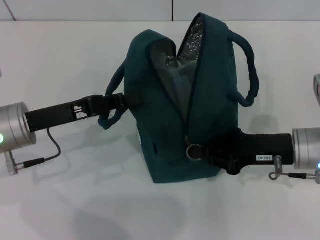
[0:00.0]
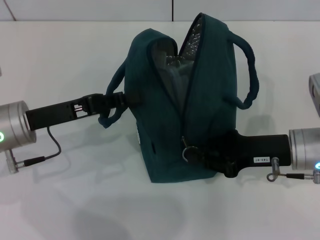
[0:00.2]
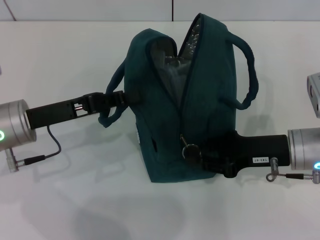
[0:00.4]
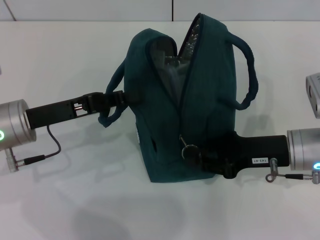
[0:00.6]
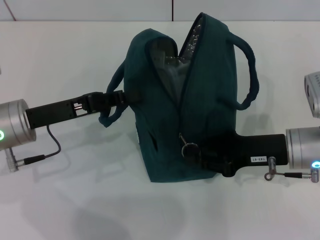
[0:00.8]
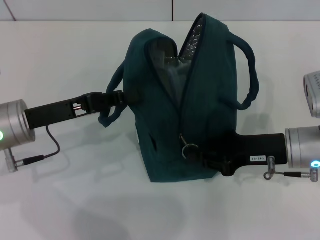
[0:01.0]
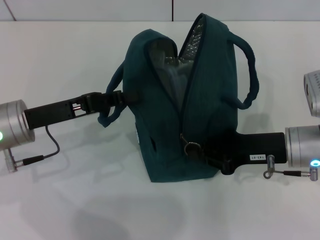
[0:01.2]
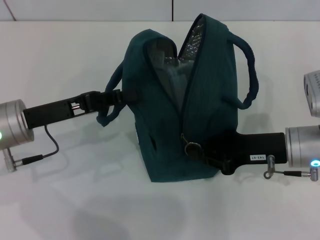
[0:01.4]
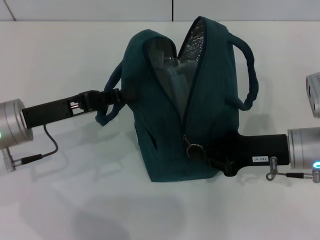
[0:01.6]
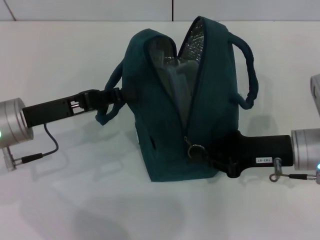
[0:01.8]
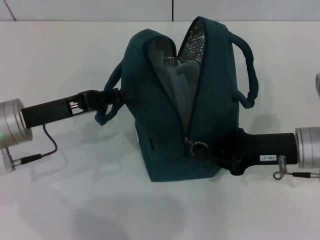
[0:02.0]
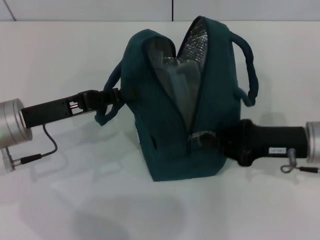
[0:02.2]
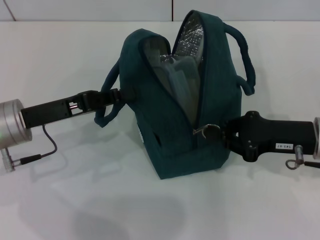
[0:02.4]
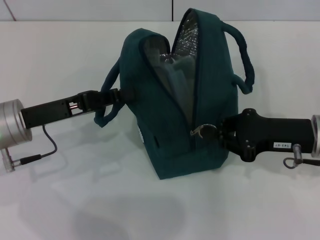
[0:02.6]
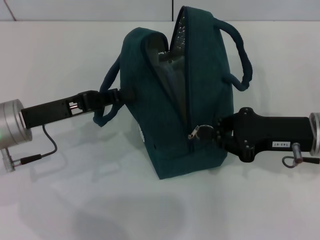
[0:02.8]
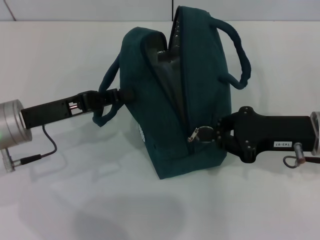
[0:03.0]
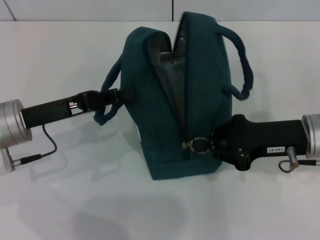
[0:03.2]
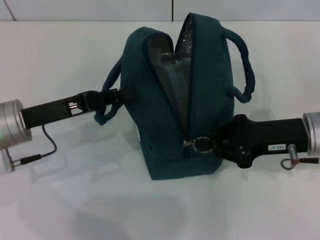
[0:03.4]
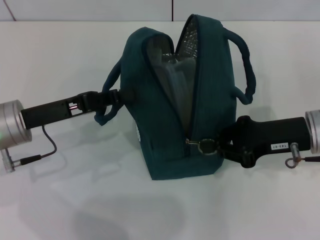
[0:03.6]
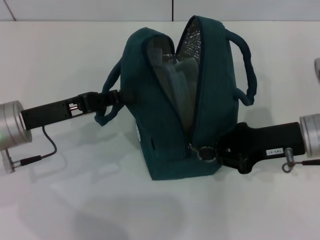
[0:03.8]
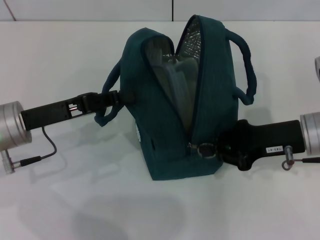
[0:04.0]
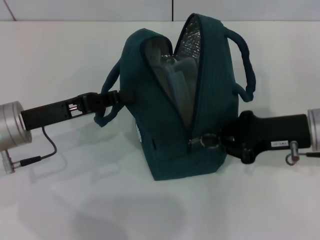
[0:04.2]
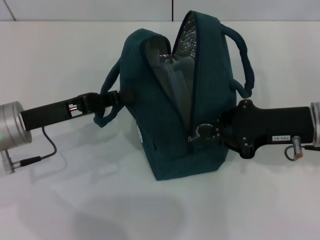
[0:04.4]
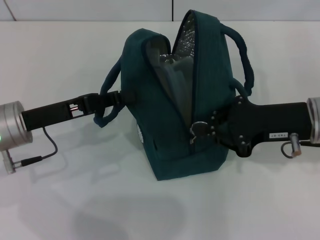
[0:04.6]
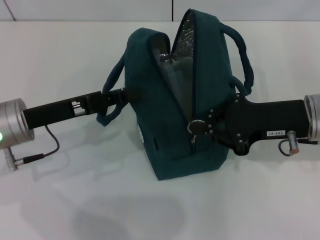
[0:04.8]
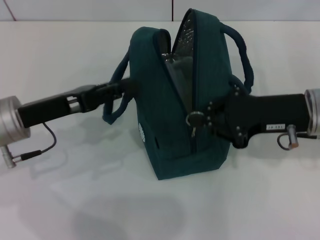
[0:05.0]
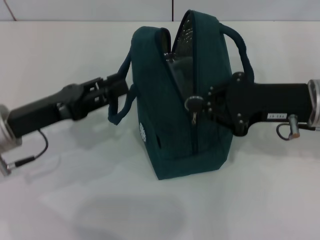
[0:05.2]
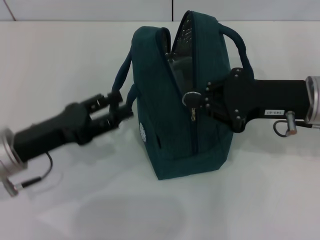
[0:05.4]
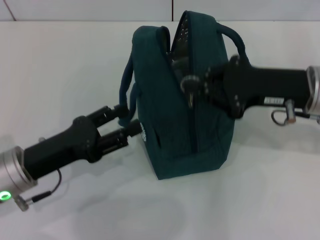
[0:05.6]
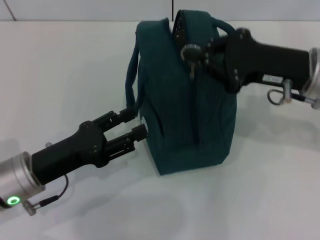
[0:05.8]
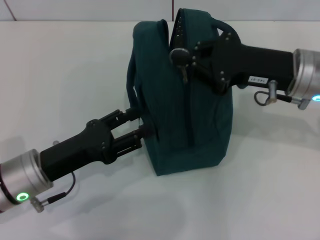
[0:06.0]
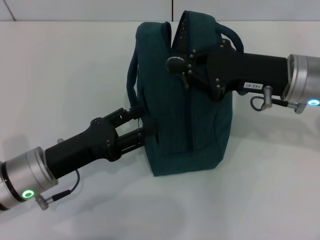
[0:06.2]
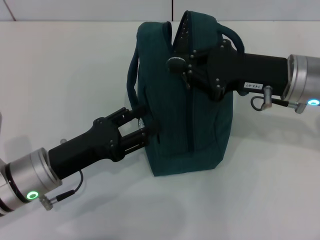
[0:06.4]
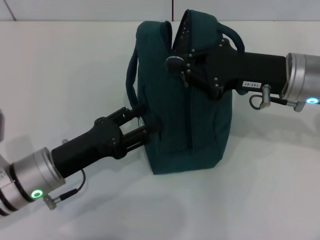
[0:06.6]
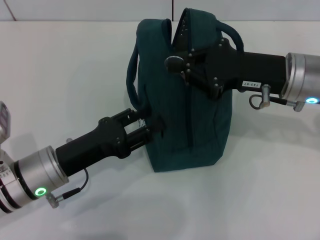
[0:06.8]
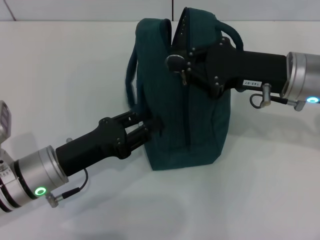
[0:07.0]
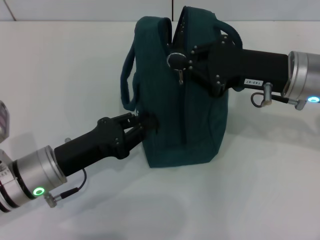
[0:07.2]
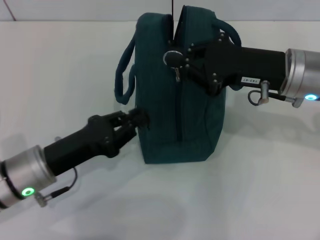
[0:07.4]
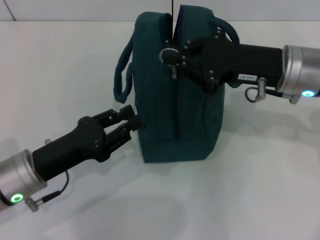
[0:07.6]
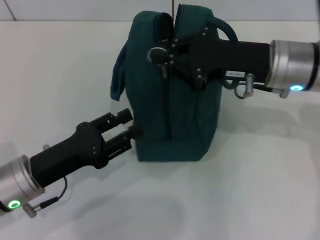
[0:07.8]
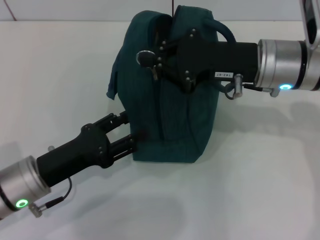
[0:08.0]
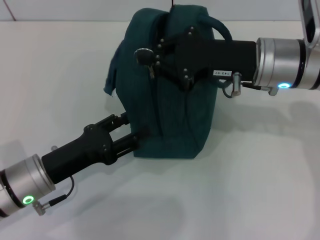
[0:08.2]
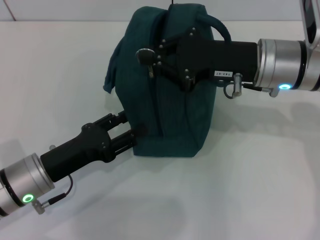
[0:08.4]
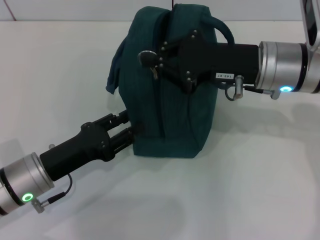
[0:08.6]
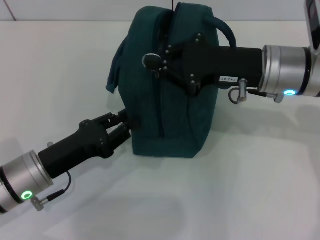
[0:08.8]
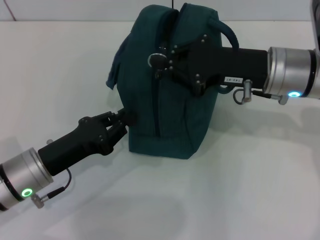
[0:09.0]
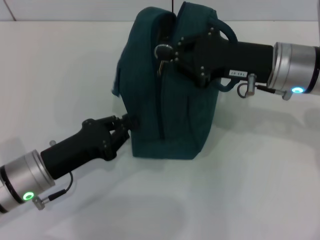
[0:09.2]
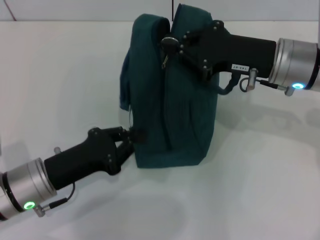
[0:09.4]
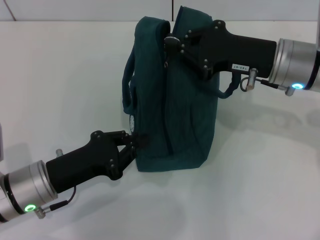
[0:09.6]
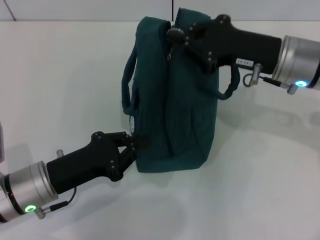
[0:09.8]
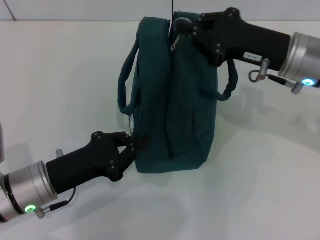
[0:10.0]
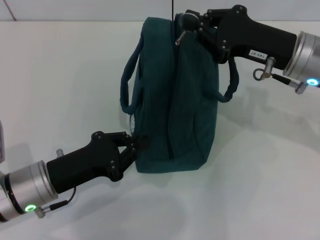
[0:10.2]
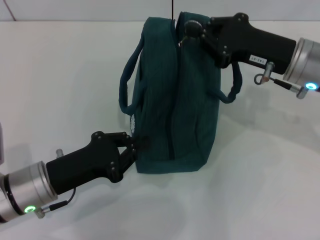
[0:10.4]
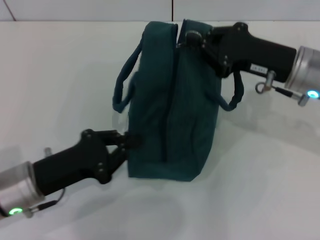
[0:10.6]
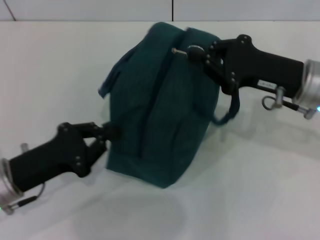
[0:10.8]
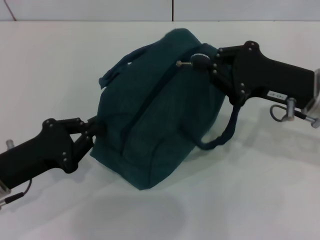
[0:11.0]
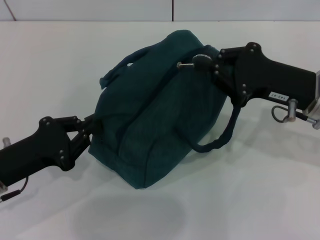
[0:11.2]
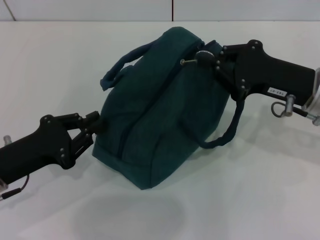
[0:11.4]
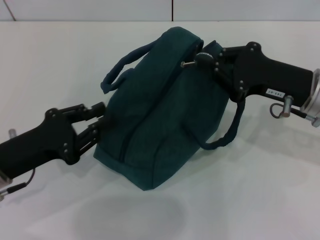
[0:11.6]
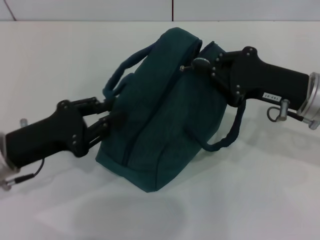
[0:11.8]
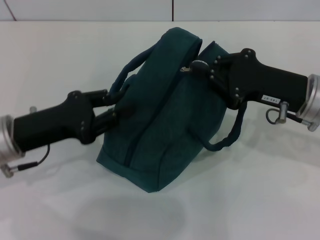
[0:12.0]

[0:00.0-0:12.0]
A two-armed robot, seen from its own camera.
0:00.0 to 0:01.6: The two grippers keep their place.
0:01.6 to 0:04.4: The grippers make only small movements.
0:04.4 to 0:06.0: The left gripper is displaced backward by approximately 5 cm, and opens its fingers. Meanwhile the right gripper changes place by about 5 cm.
0:06.0 to 0:07.6: The left gripper closes up.
0:07.6 to 0:09.0: The left gripper opens and closes again.
0:10.4 to 0:12.0: The left gripper is displaced upward by roughly 5 cm.

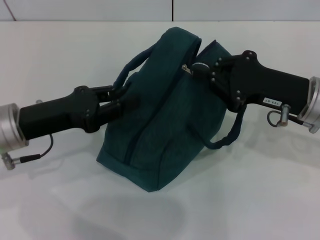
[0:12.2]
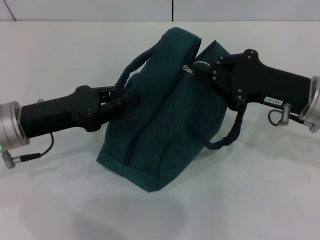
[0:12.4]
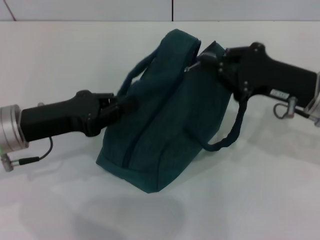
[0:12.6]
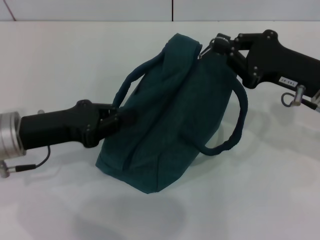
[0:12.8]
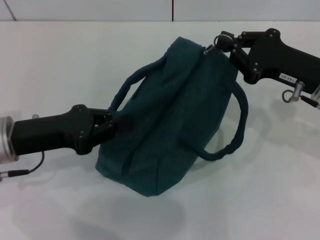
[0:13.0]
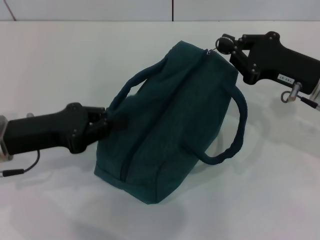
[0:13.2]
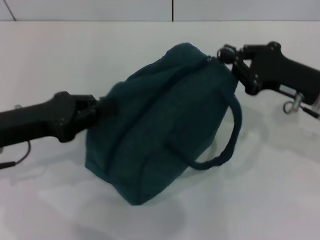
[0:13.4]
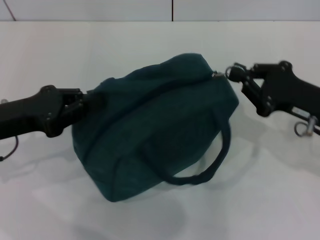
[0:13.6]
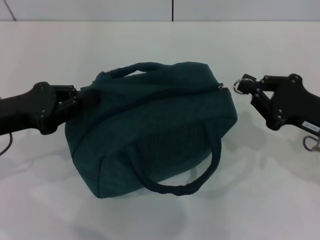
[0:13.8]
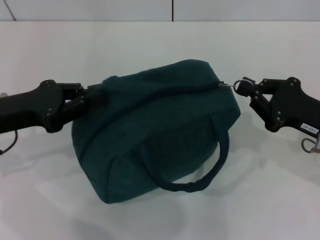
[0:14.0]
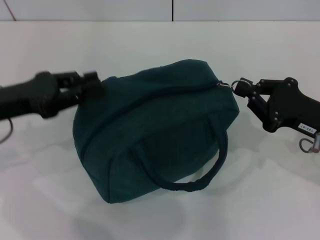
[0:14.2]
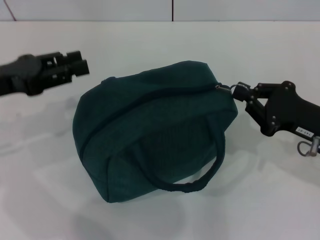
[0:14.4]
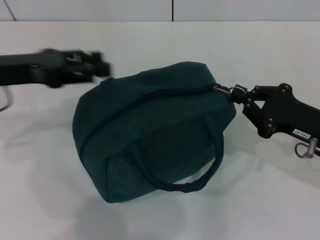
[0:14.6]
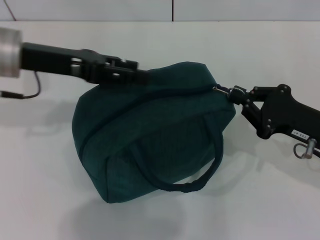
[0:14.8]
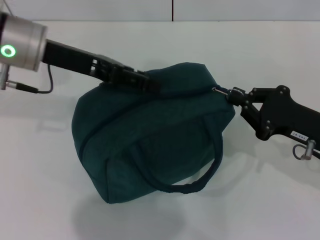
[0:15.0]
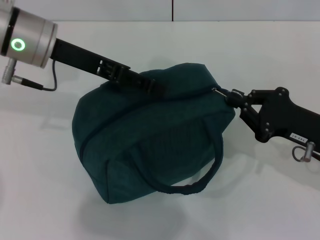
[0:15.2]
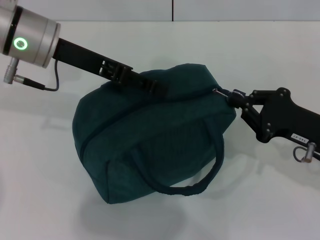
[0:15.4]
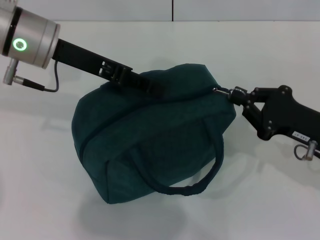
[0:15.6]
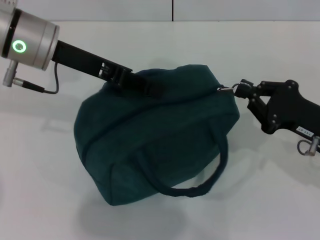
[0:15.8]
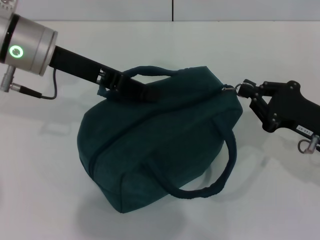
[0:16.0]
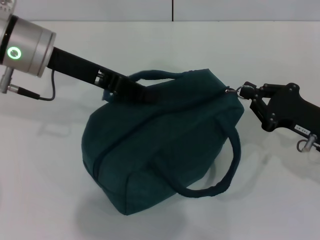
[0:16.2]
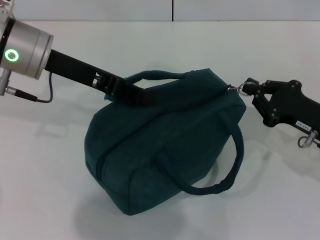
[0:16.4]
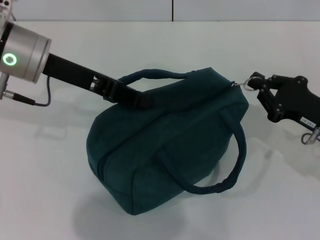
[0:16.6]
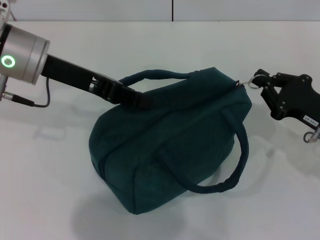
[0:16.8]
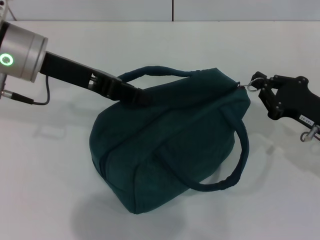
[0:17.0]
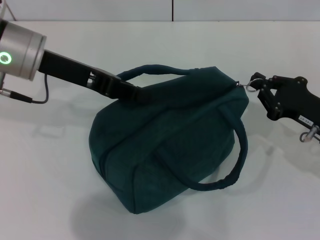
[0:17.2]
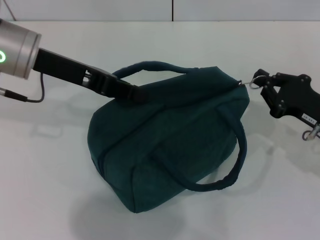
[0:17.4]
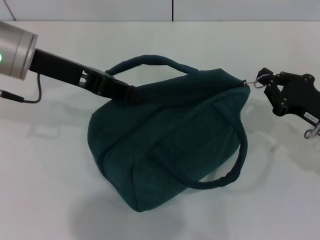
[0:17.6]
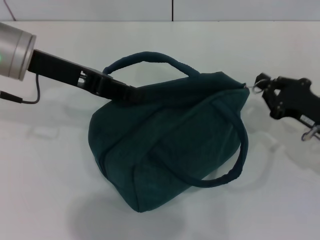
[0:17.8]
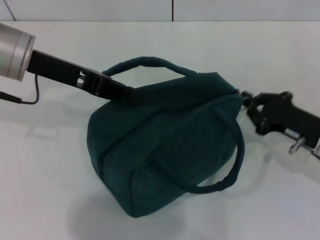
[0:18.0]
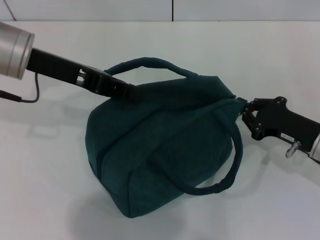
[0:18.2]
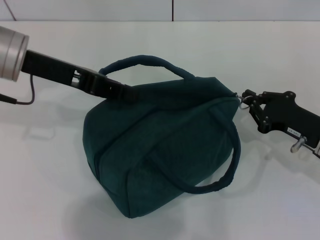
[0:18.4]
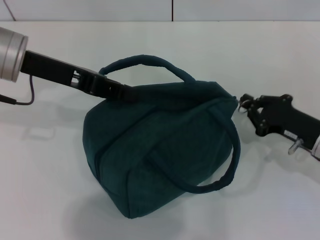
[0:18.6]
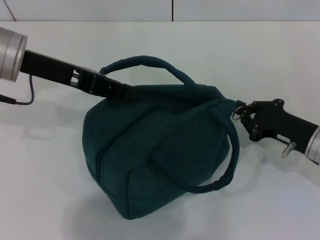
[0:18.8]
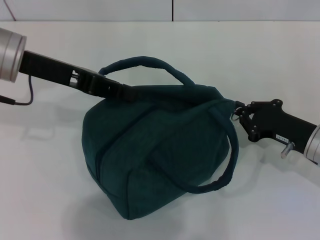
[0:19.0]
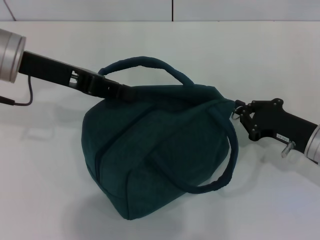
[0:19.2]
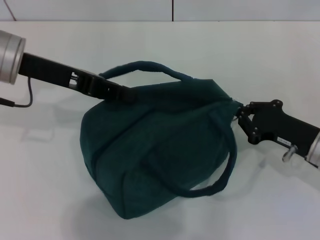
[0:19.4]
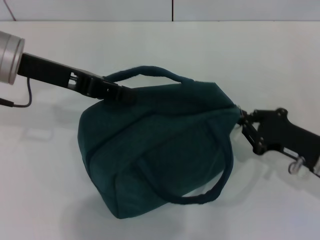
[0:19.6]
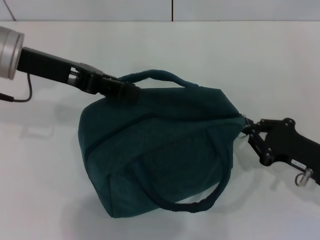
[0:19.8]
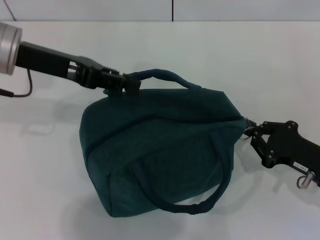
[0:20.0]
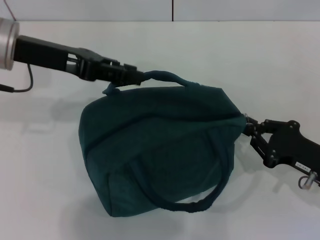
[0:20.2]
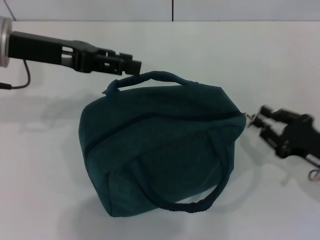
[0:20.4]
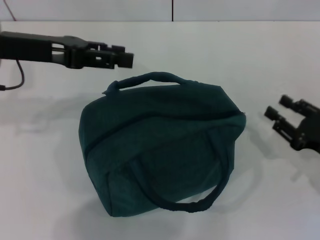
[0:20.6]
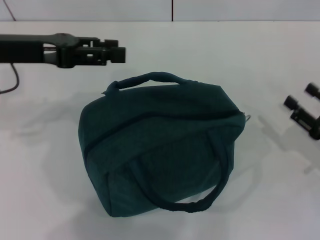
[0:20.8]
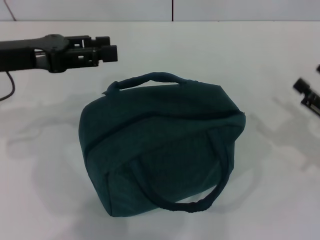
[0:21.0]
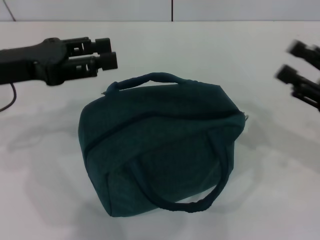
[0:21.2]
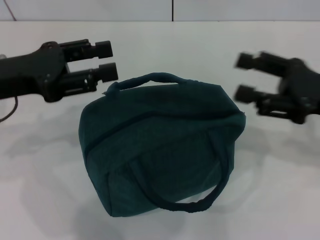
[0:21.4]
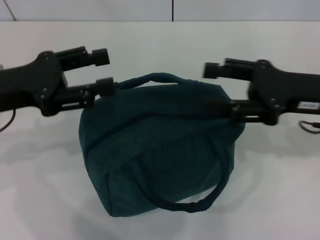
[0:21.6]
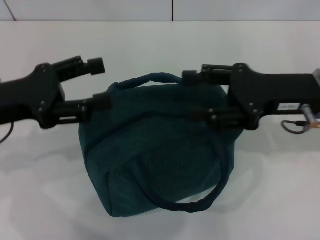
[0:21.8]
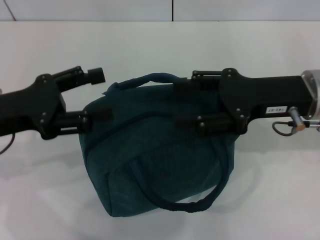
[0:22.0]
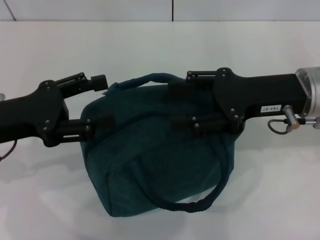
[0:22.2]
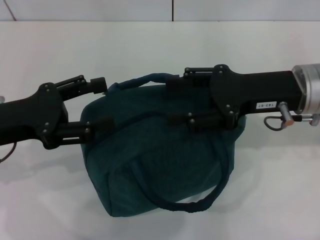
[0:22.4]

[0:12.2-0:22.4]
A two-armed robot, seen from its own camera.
Step, 0:12.2 to 0:20.2: Hold the lunch bag with your left hand.
0:12.2 to 0:13.6: The grippers move only a little.
0:13.6 to 0:15.2: The left gripper is displaced forward, to the right and upward by approximately 15 cm, and opens up.
0:15.2 to 0:16.6: The left gripper closes up.
0:16.6 to 0:19.4: The grippers move only a little.
0:19.4 to 0:21.0: The right gripper heads to the right, covering roughly 5 cm, and opens; the left gripper moves some 5 cm, and opens its fingers.
0:21.0 to 0:22.4: The left gripper shifts approximately 5 cm backward; the right gripper heads to the left, upward and forward, covering some 20 cm.
